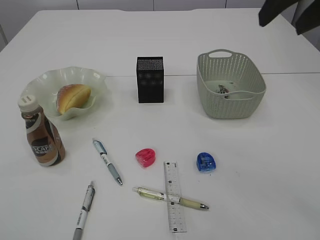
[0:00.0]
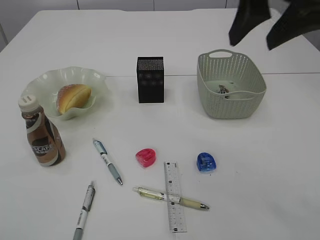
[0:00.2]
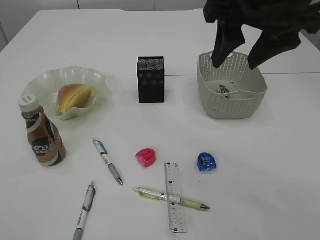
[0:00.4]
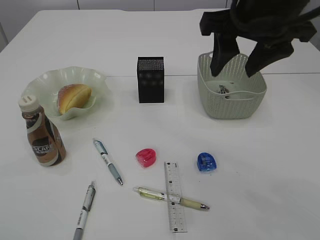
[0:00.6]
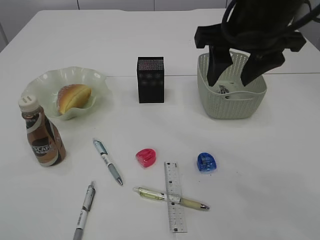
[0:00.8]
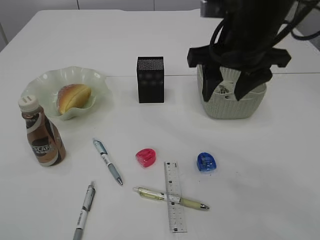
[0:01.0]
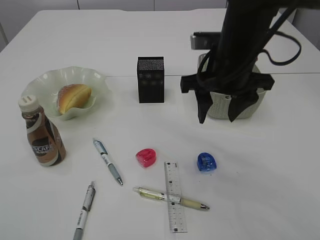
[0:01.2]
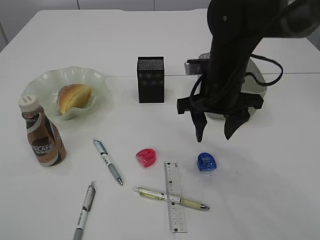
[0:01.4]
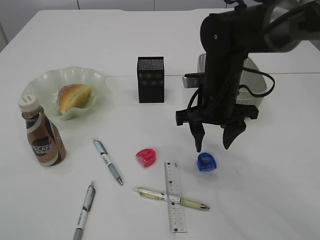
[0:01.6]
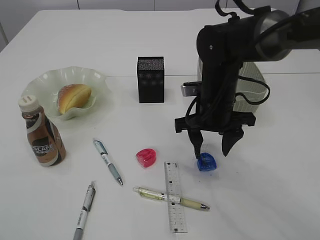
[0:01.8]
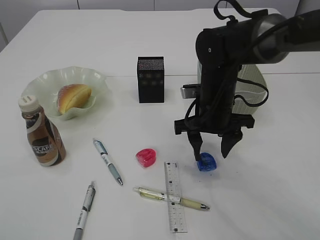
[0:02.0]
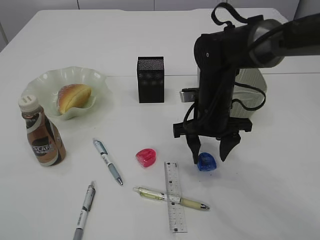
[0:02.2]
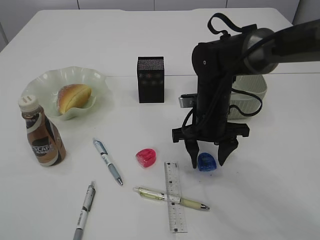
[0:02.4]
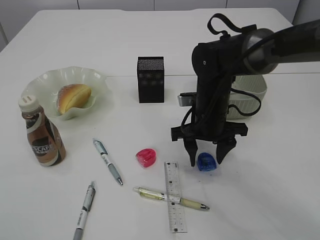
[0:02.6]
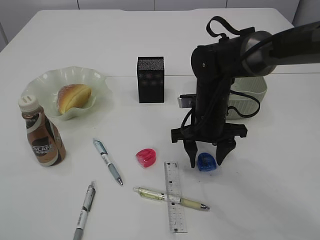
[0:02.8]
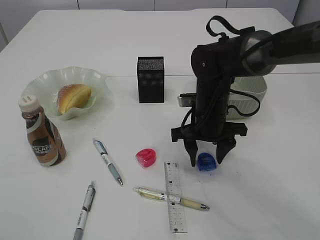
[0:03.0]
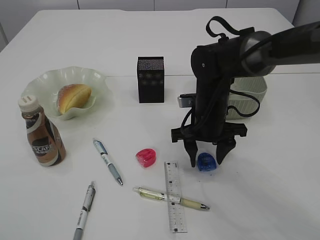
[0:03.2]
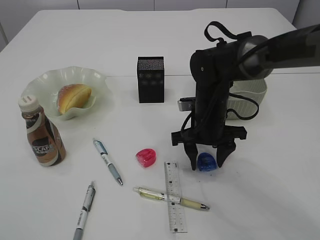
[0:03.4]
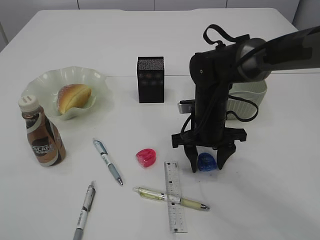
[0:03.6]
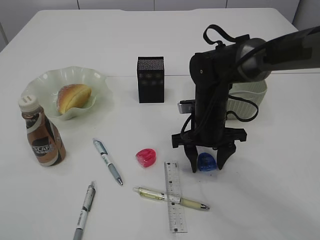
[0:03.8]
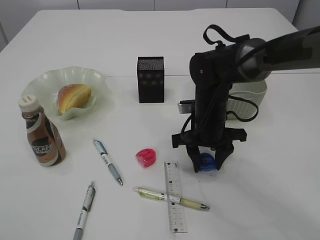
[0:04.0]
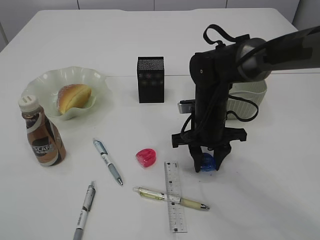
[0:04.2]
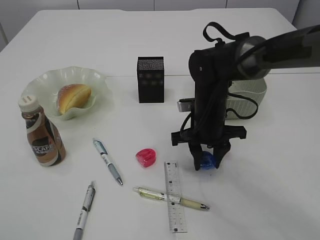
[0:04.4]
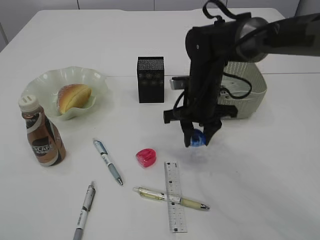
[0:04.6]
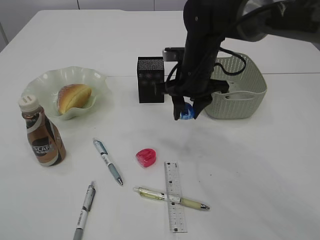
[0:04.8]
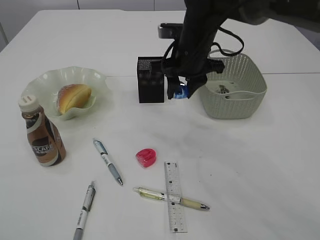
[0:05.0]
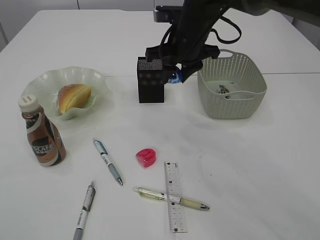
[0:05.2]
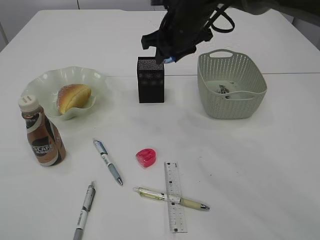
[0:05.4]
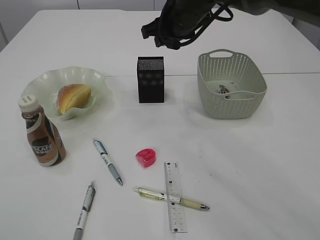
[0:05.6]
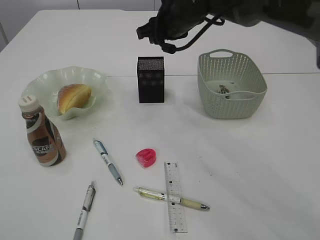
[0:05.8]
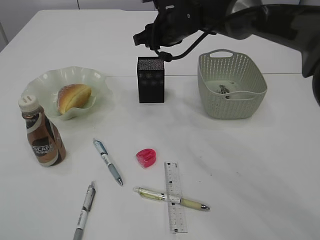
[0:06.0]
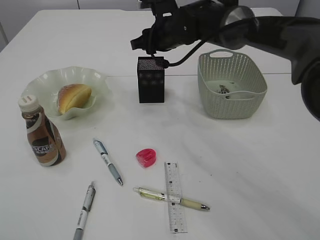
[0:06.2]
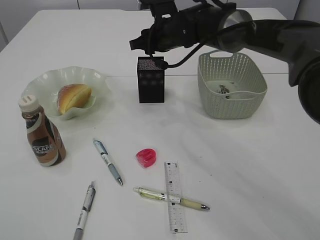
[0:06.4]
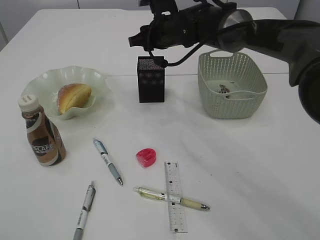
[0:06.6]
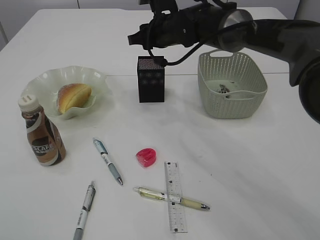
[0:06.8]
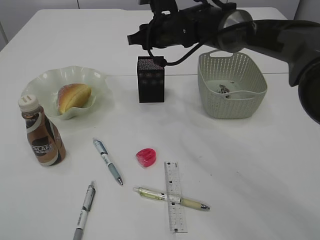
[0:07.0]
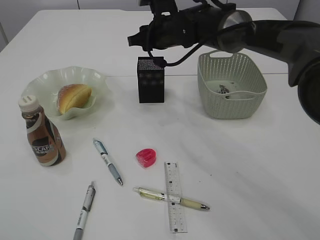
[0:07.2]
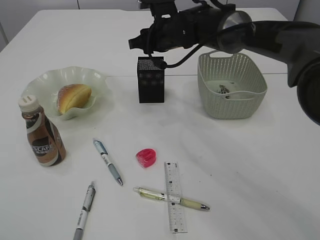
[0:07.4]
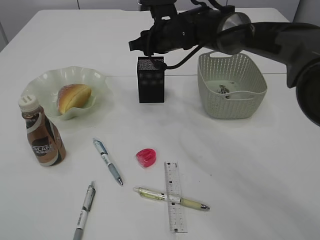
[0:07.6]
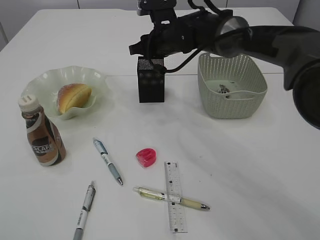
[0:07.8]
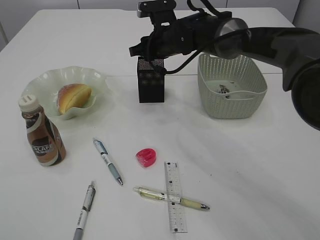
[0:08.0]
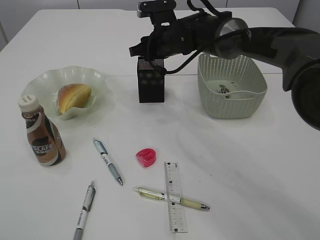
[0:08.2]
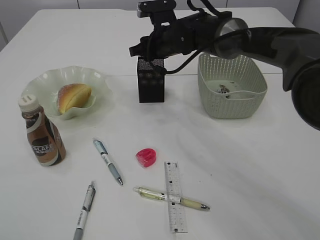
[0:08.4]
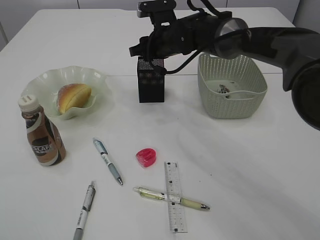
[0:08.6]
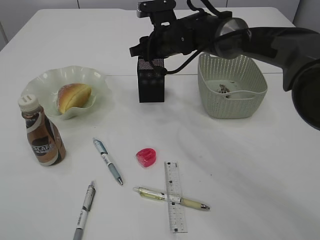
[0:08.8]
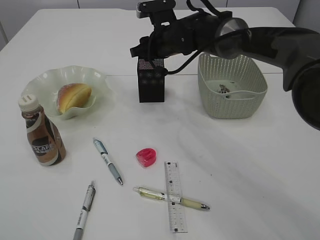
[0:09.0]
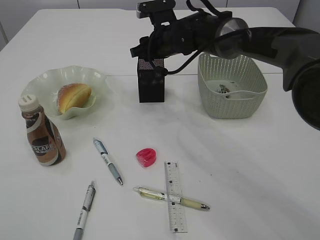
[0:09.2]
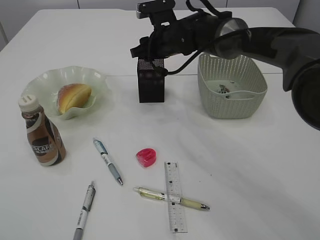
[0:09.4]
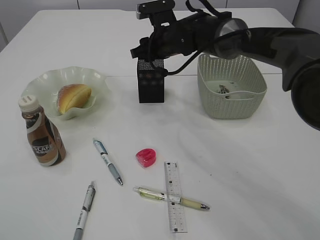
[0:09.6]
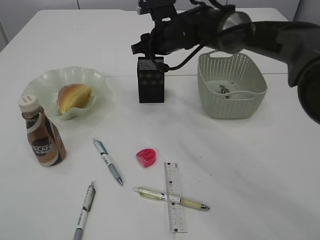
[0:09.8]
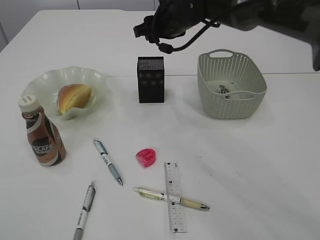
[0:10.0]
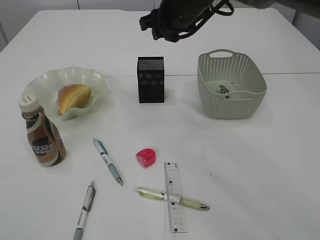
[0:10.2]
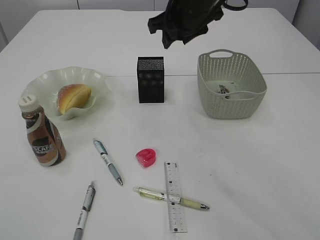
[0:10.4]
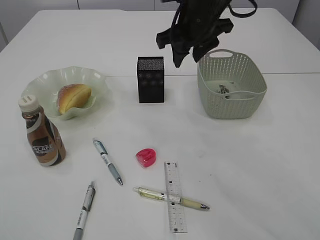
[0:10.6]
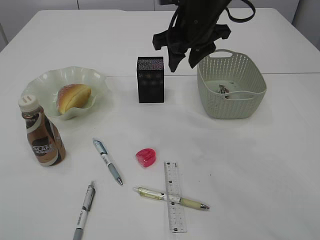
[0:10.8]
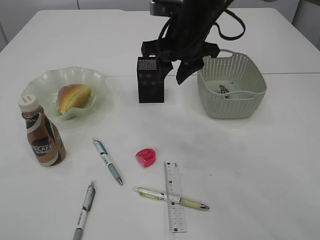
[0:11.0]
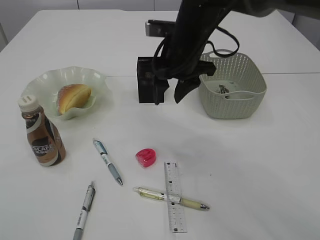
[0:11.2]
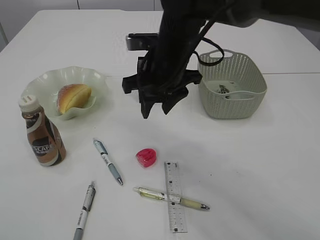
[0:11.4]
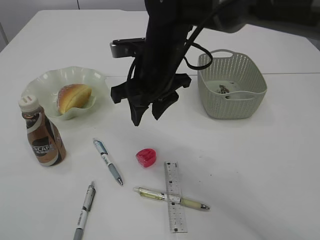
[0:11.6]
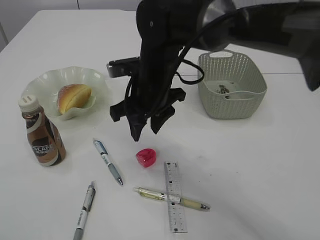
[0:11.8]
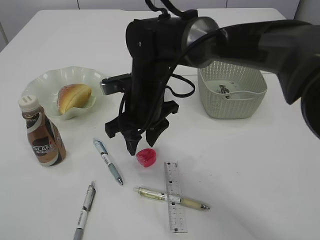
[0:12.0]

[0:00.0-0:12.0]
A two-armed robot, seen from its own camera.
Step, 0:00.0 to 0:04.6: Pick up the blue pencil sharpener.
Step, 0:04.8 to 0:09.8: Place the blue pencil sharpener into the pen holder.
0:00.0 to 0:01.6: The right gripper goes roughly 25 cm downward and forward.
0:01.6 to 0:03.0: The right gripper moves downward, about 5 cm.
0:03.0 to 0:04.4: The right gripper closes up.
0:04.4 to 0:06.0: The right gripper travels upward and forward by some 15 cm.
0:06.0 to 0:07.6: The grippers move only a little.
0:07.6 to 0:09.0: The two grippers keep their place.
0:09.0 to 0:10.4: The right gripper travels upward and backward by approximately 10 cm.
0:10.4 to 0:12.0: The right gripper shifts some 15 cm downward, to the left and backward.

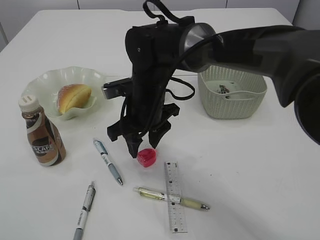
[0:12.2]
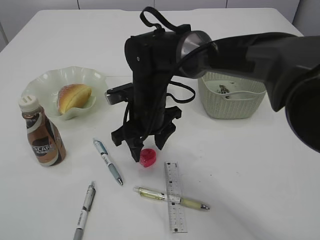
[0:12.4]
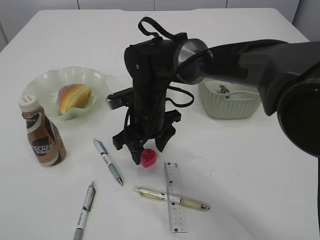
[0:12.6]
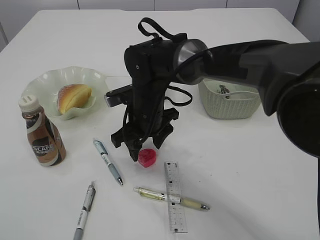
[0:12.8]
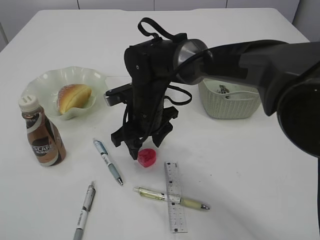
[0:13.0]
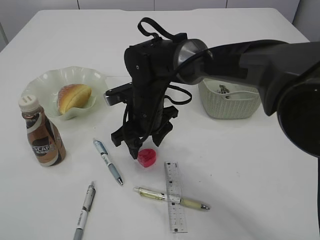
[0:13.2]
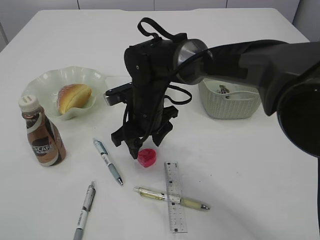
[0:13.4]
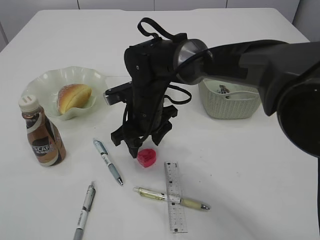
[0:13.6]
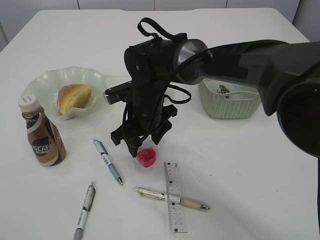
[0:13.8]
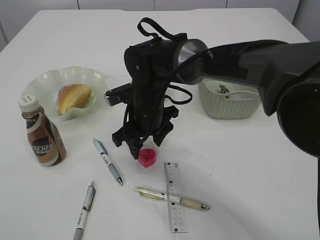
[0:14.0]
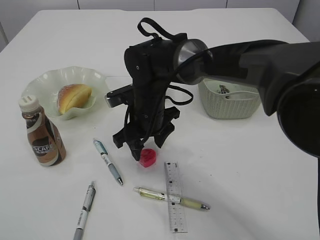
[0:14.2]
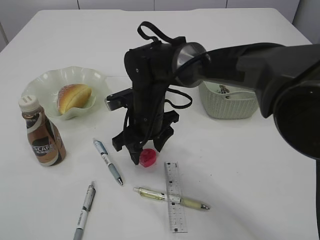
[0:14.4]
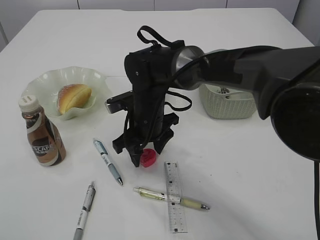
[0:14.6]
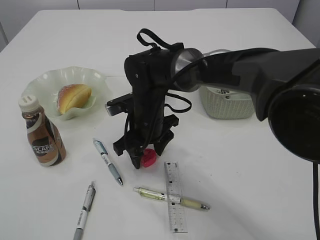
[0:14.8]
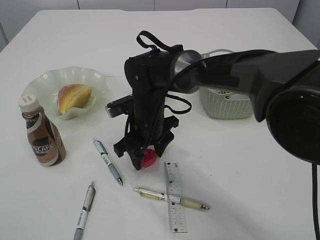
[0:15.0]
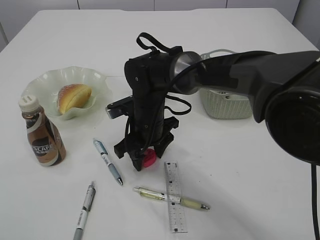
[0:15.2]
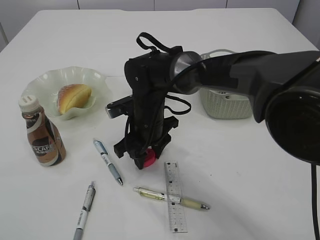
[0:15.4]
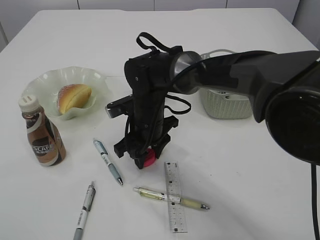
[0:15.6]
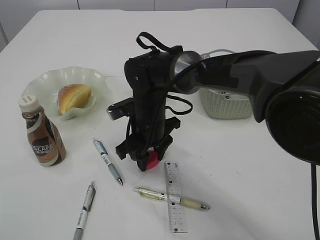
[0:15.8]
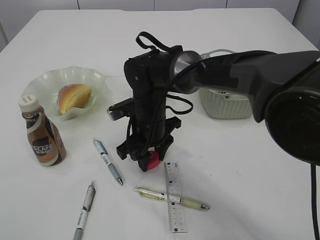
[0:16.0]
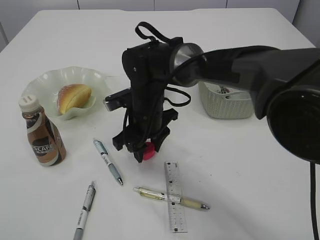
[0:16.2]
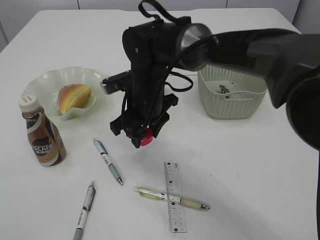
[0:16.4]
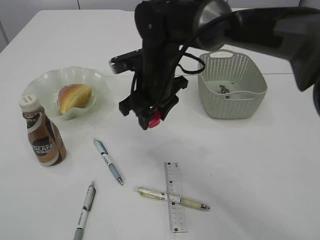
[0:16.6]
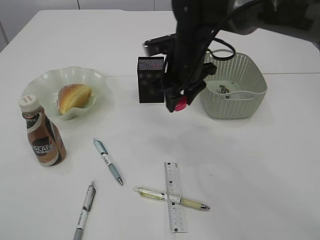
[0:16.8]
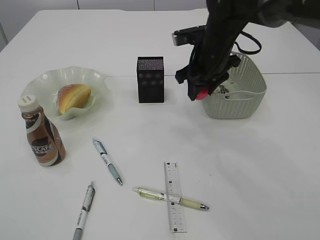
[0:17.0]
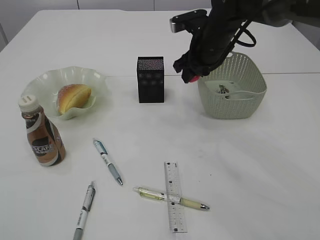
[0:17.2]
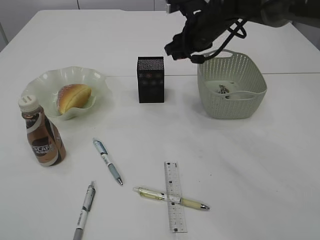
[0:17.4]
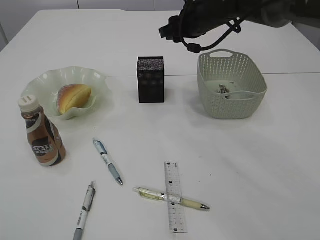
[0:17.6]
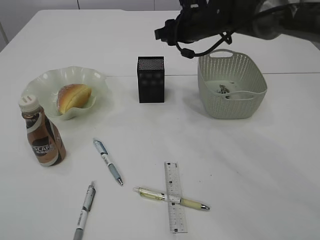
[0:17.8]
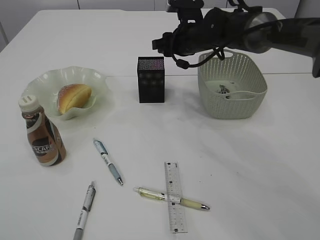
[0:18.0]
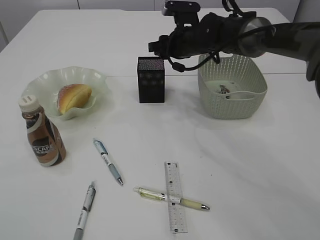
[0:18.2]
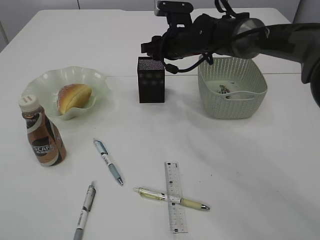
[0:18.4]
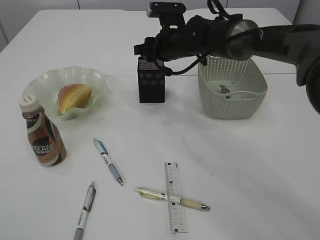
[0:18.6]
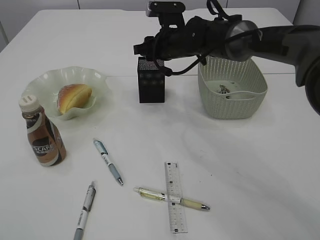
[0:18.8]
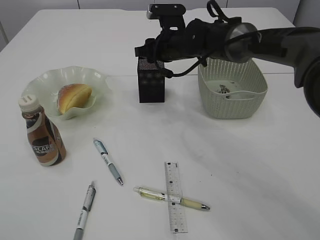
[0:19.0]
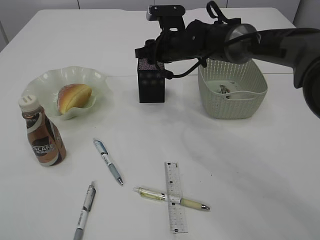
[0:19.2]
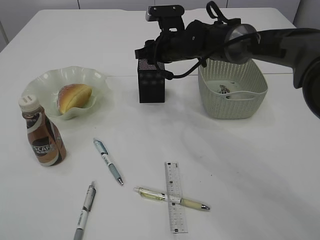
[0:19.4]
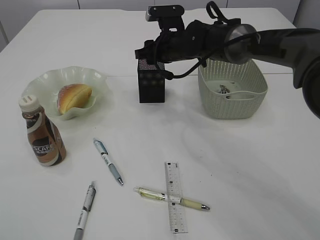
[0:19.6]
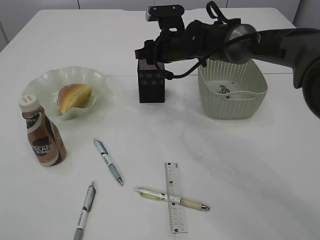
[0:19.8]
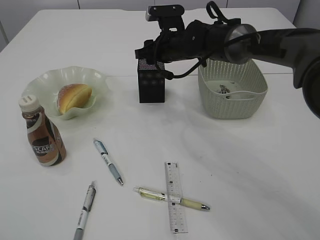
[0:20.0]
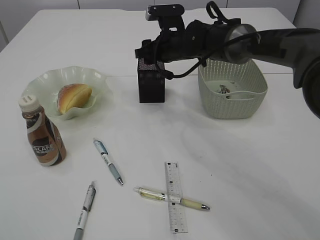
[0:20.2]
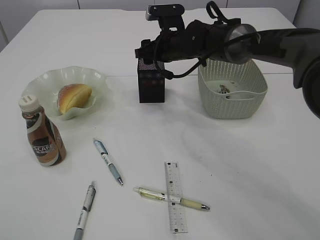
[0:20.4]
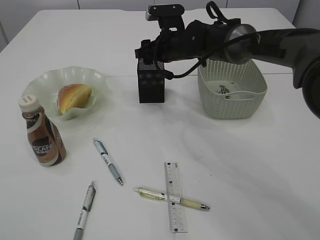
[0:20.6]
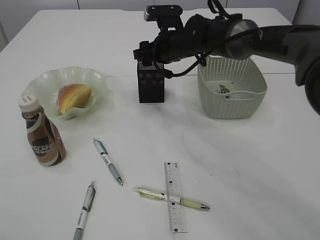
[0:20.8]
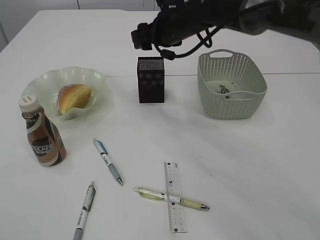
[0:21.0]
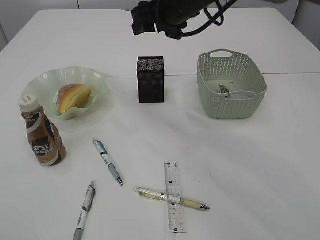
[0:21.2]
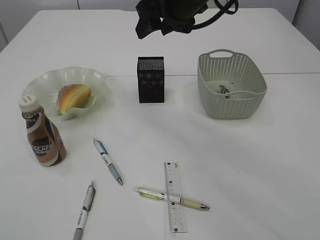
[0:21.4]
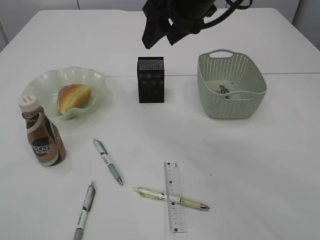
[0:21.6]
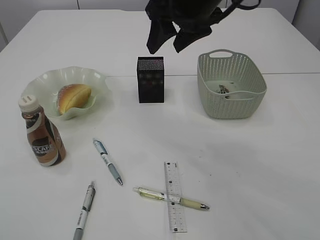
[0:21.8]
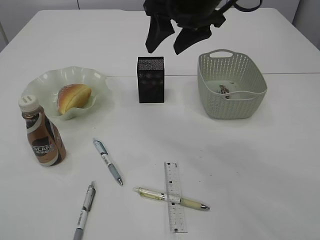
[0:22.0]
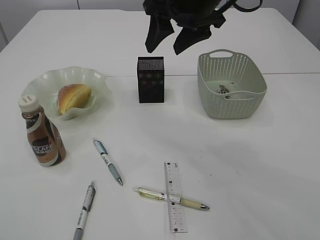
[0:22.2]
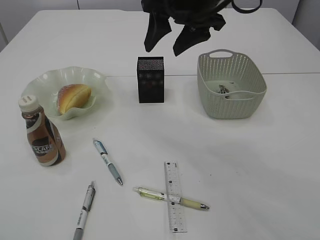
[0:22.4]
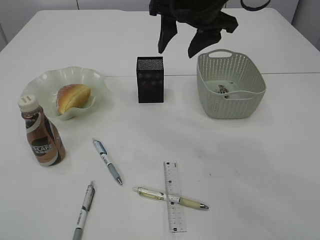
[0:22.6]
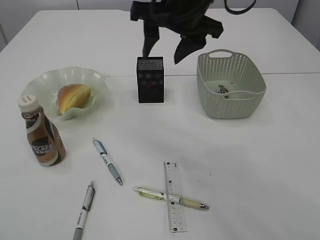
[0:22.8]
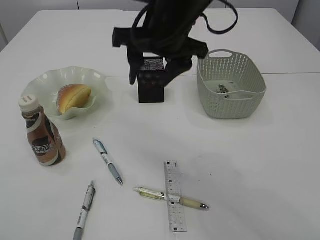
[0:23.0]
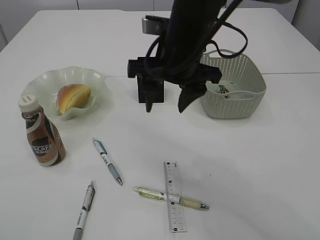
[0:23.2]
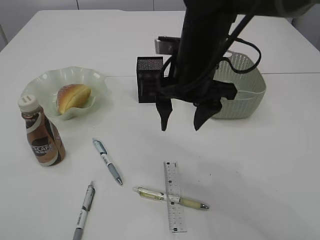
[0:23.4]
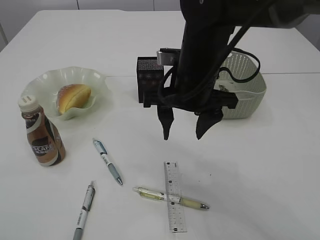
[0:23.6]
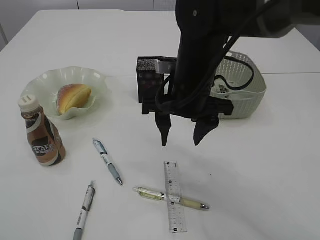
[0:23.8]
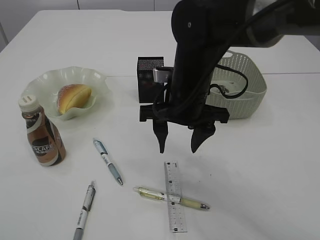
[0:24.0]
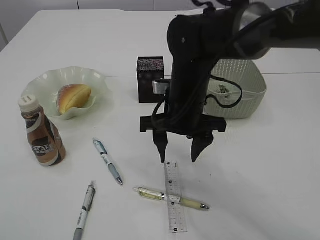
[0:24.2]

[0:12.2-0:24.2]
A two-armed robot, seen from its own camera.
Step, 0:12.2 to 0:16.4: Pick up the red pencil sharpener.
Step, 0:16.6 to 0:21.0: Place the red pencil sharpener into the pen holder.
0:12.2 to 0:15.2: The grippers move only a little.
0:15.2 to 0:16.6: The right gripper shifts approximately 10 cm upward.
0:16.6 to 0:18.2: The right gripper is displaced forward and to the right by roughly 15 cm.
0:18.2 to 0:19.8: There are only small adjustments of the grippers.
0:19.8 to 0:21.2: The right gripper shifts approximately 10 cm upward.
0:21.2 to 0:22.6: The right gripper heads backward, covering roughly 5 cm.
0:22.6 to 0:24.2: The right gripper shifts about 15 cm downward.
